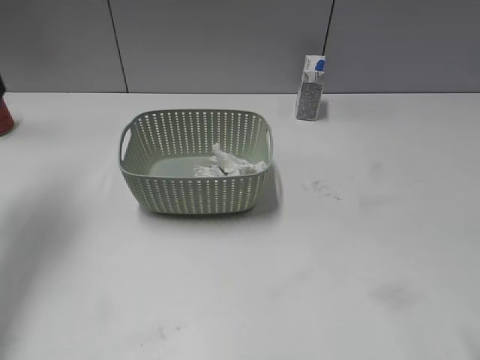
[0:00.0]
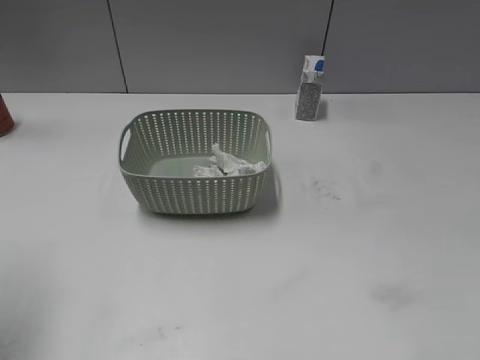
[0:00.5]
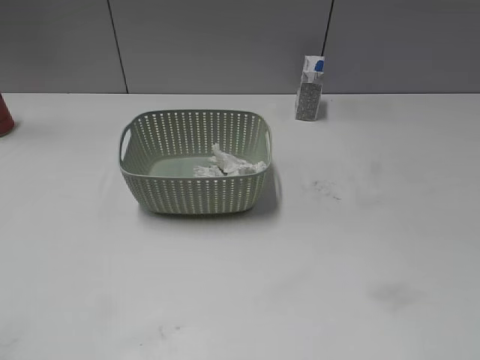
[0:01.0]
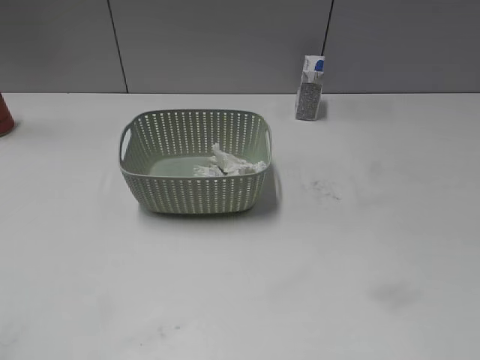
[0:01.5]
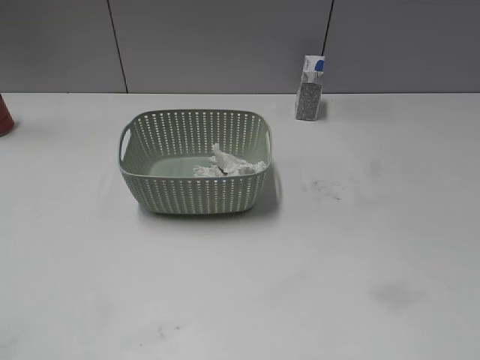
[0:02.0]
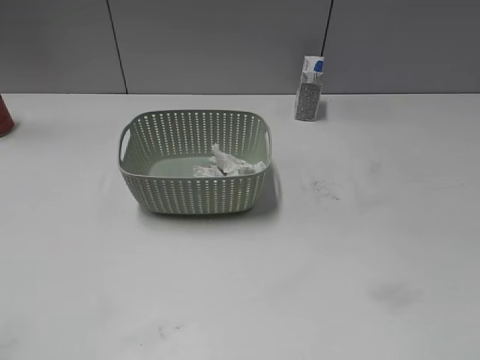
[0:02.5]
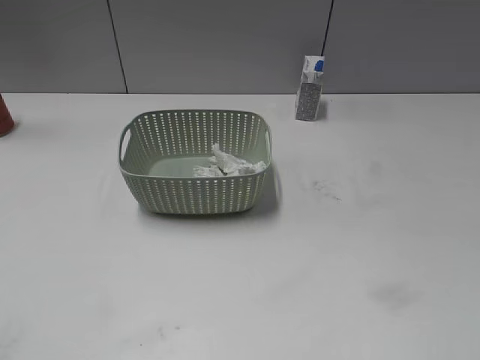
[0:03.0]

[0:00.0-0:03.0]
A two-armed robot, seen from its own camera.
0:00.0 to 0:01.5: The left gripper heads backward, covering roughly 35 cm.
0:01.5 to 0:03.0: Both grippers stay put.

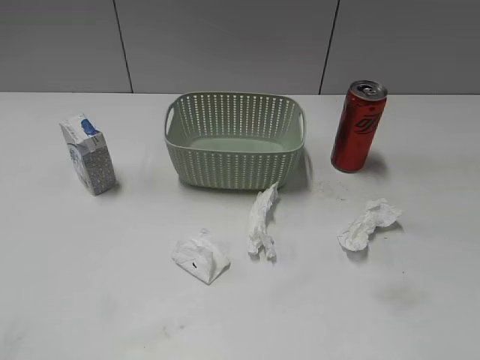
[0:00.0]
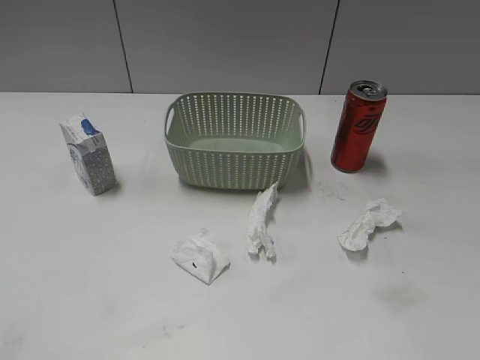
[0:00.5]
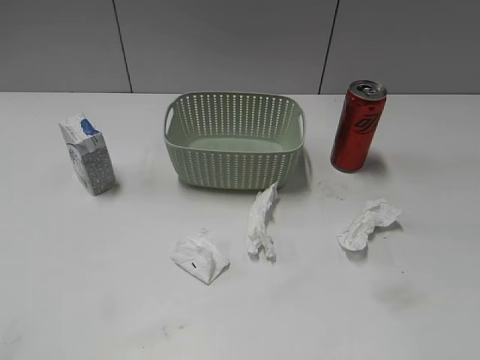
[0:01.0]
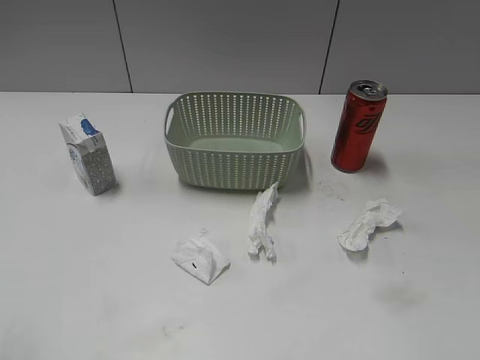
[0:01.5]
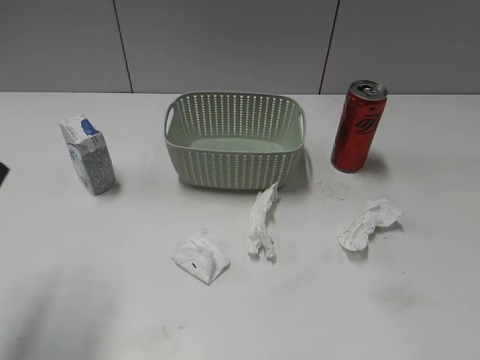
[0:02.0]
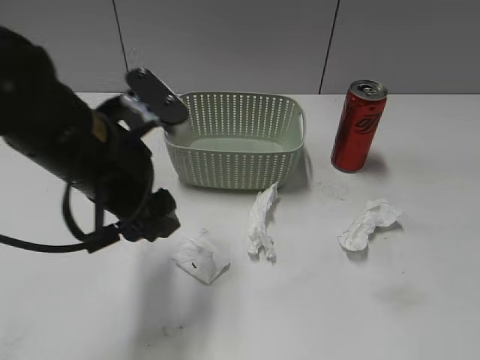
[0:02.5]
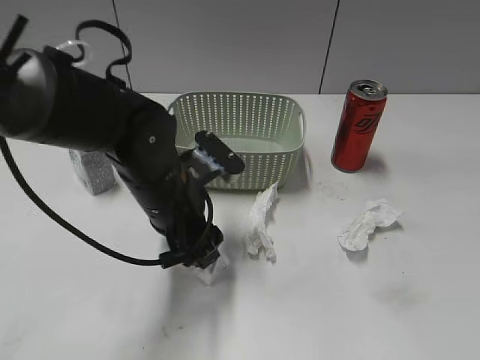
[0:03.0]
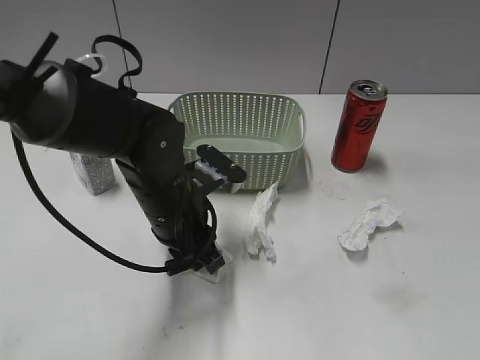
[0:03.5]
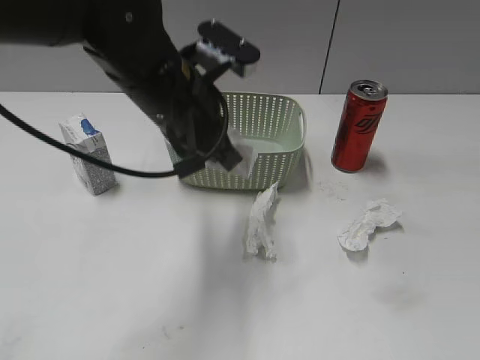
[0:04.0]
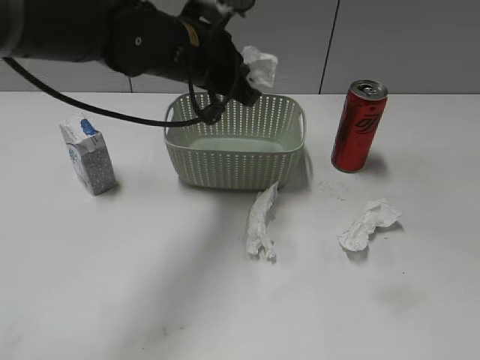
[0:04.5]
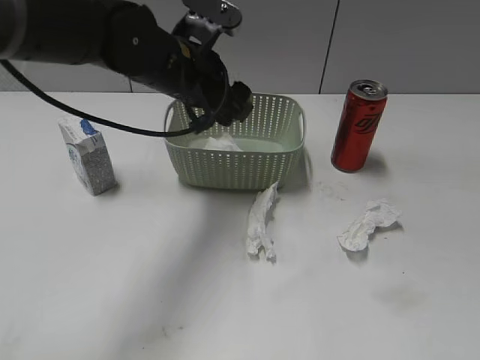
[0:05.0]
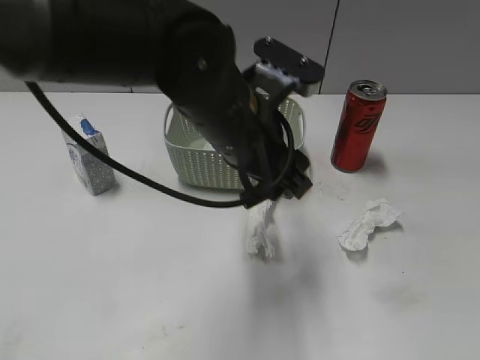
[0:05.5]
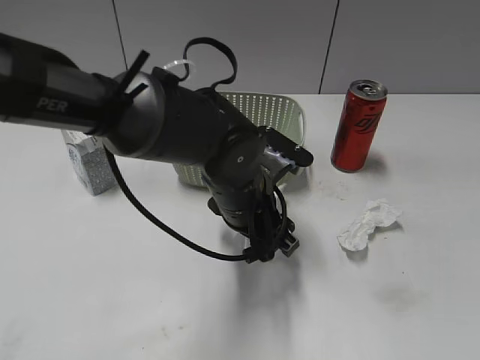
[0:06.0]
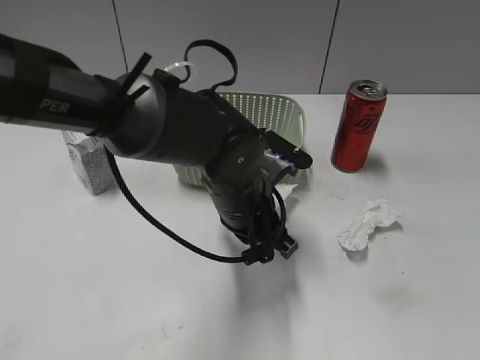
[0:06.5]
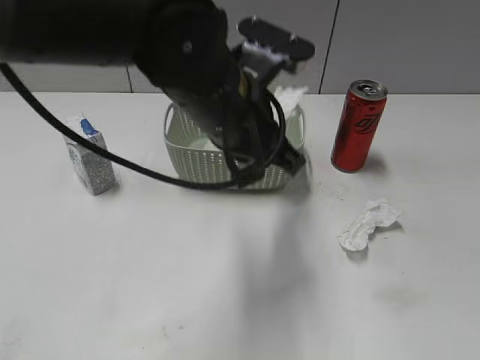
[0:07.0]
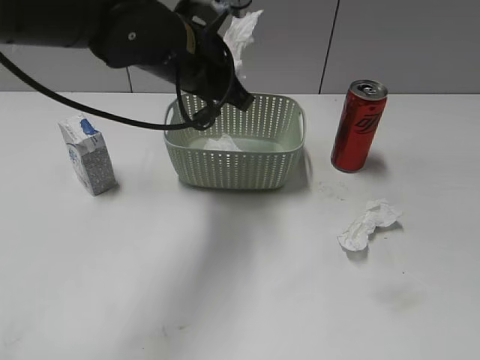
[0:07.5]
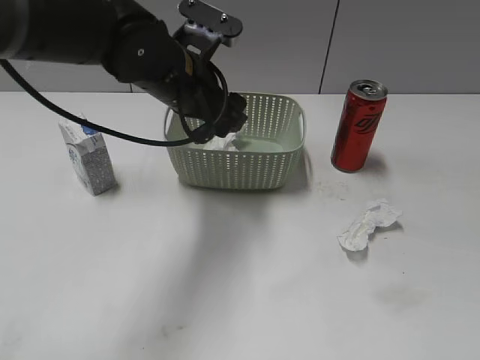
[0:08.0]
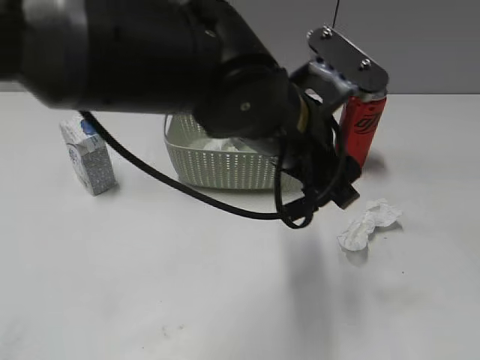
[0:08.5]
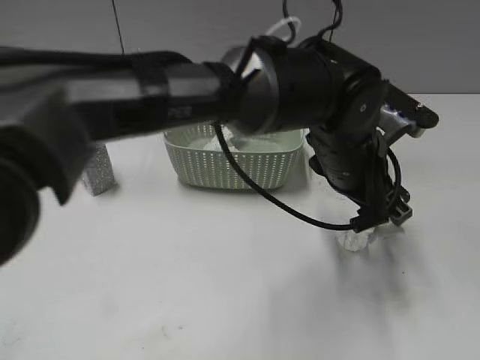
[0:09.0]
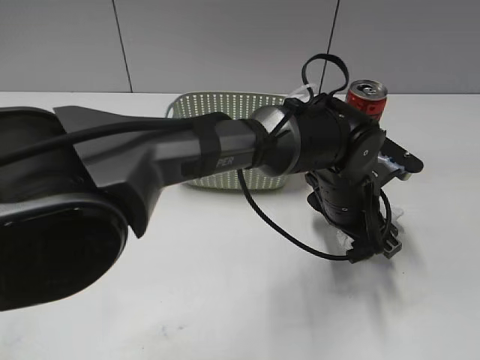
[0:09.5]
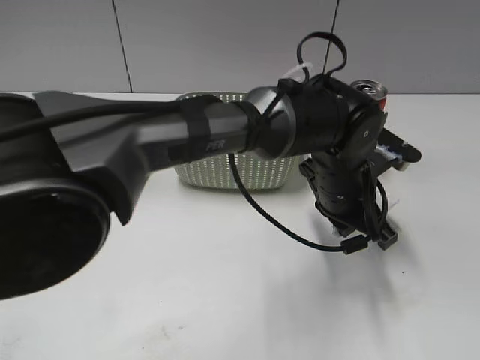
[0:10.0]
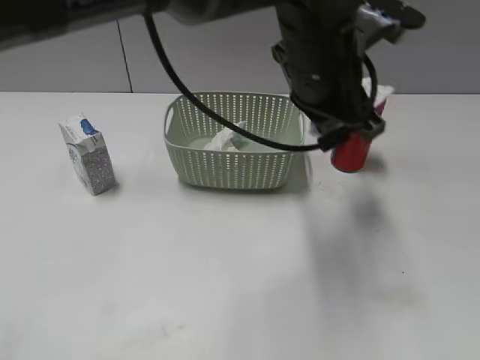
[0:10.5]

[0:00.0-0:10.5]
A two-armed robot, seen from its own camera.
Step, 0:02.0 to 0:03.5: Grasp the waste paper with left gripper.
Step, 0:04.0 to 0:04.5: Place the waste paper in the basket with left gripper.
Step, 0:05.0 to 0:06.5: Grasp the waste paper with left gripper.
Step, 0:07.0 to 0:07.5: Place the waste paper in the basket with left gripper.
Step, 0:08.0 to 0:09.5: Grasp the waste paper with left gripper.
0:02.0 to 0:04.0: The left gripper heads to the right and forward, covering about 25 cm, and closes.
0:04.0 to 0:06.5: The left gripper is displaced downward and to the right by about 15 cm, and opens and closes again.
0:06.5 to 0:08.5: The left gripper goes approximately 10 cm upward, and opens its fingers.
0:08.5 to 0:10.5: The left gripper travels downward and back again, about 10 cm each way, and closes.

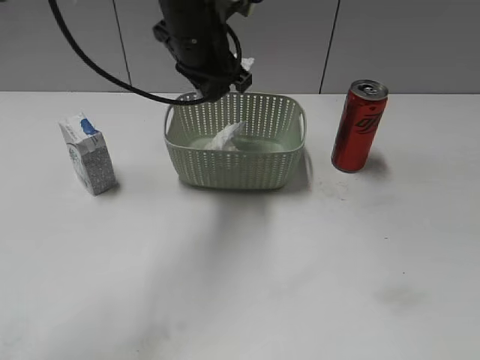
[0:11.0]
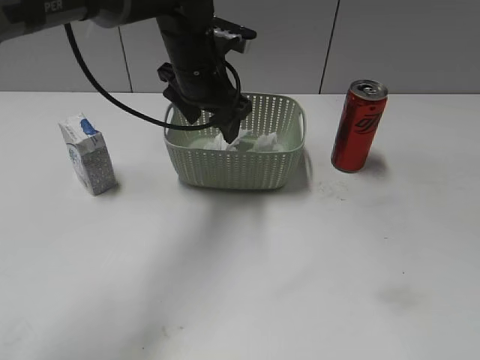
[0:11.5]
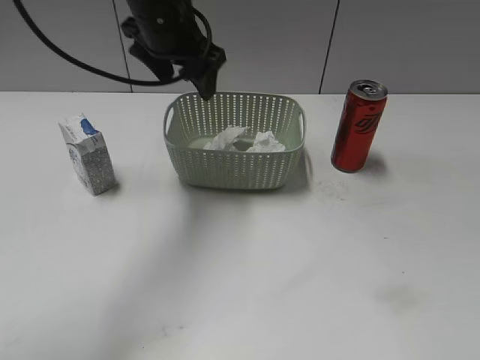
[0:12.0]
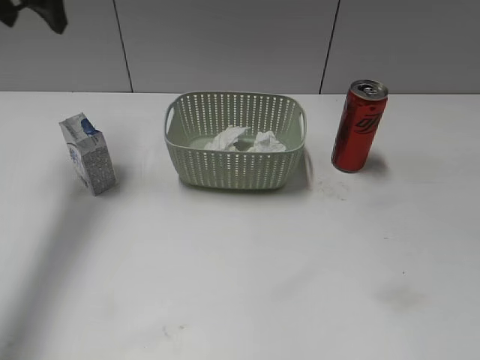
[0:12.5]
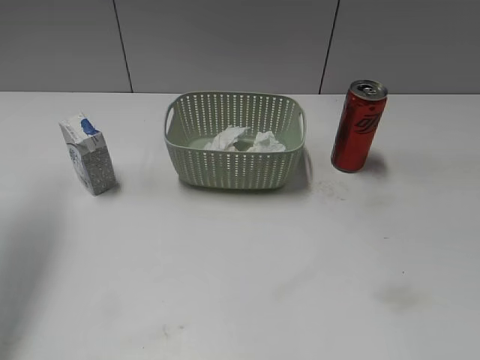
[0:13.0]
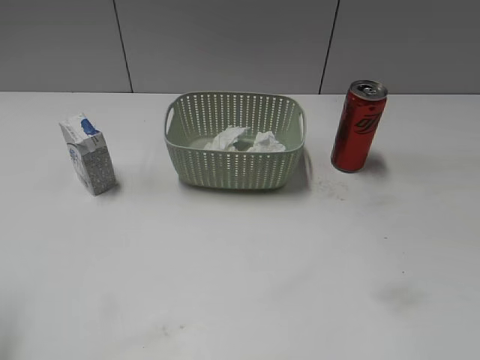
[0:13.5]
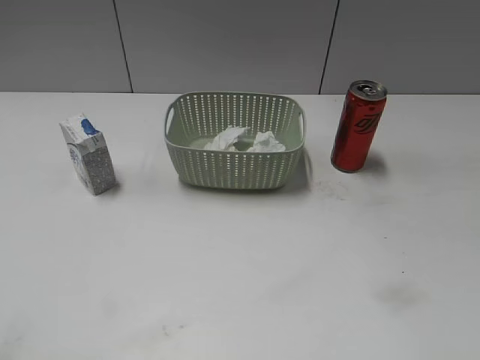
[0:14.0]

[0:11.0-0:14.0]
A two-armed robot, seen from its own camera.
0:11.0 to 0:12.5: The left gripper heads to the left, covering roughly 20 cm, and opens its fingers.
0:12.5 to 0:14.0: The left gripper goes some 35 cm backward.

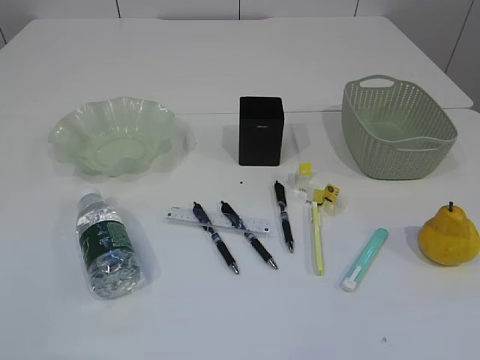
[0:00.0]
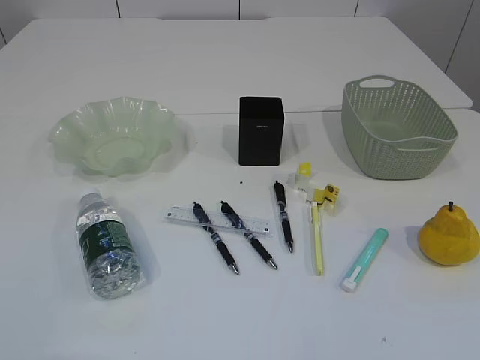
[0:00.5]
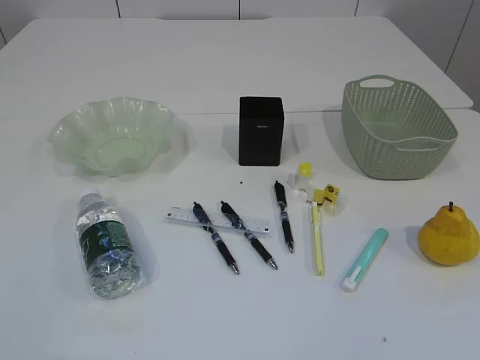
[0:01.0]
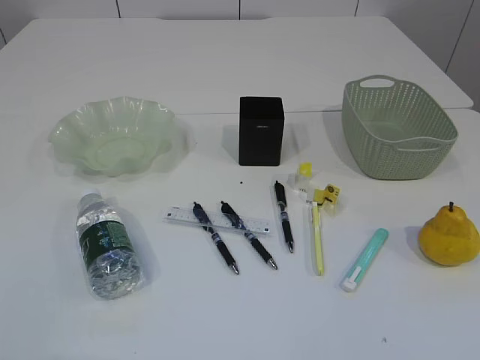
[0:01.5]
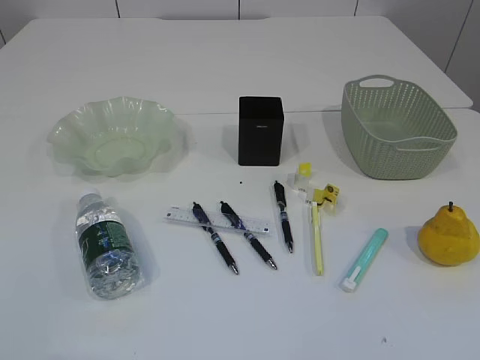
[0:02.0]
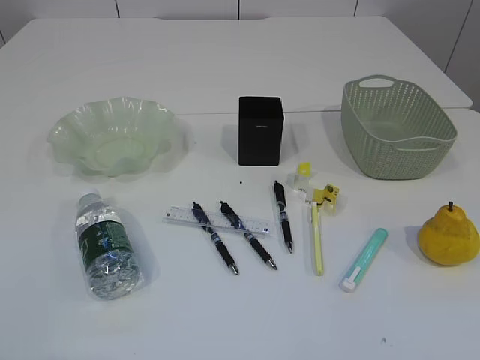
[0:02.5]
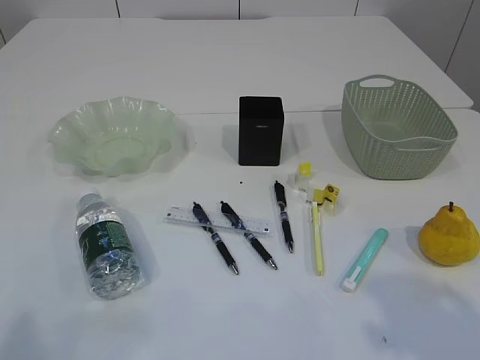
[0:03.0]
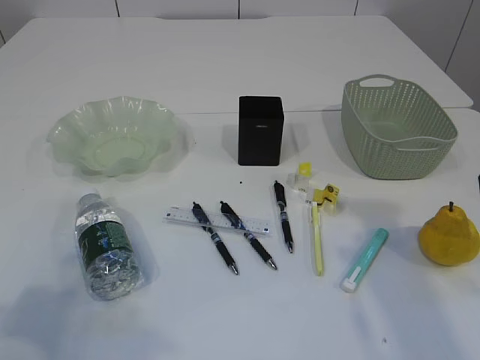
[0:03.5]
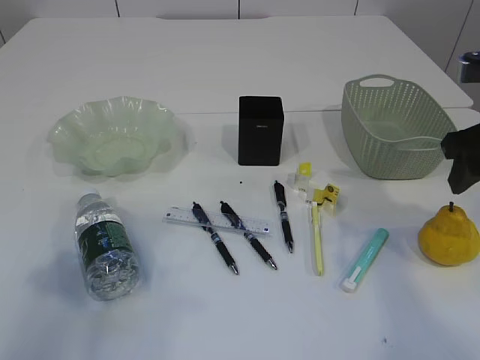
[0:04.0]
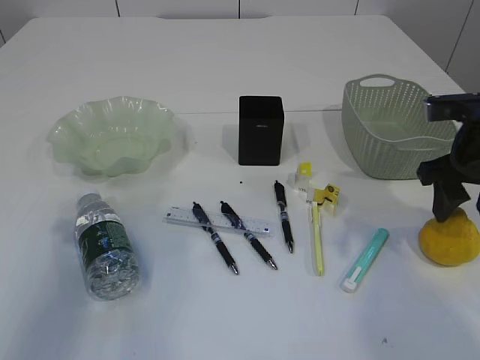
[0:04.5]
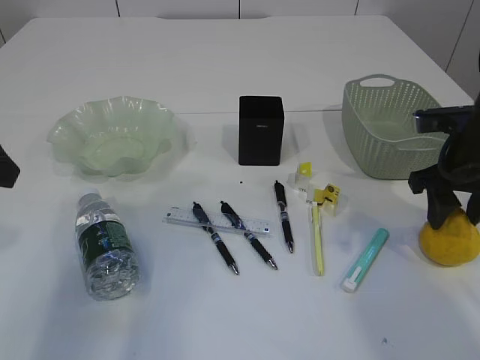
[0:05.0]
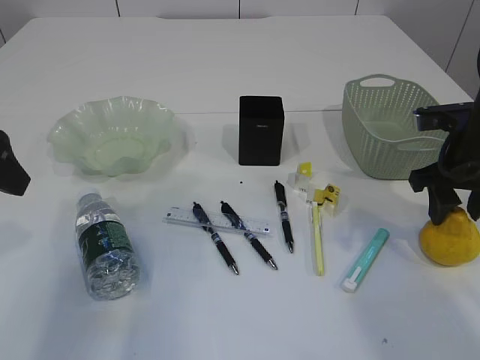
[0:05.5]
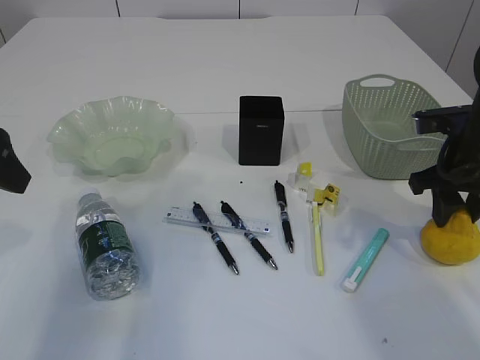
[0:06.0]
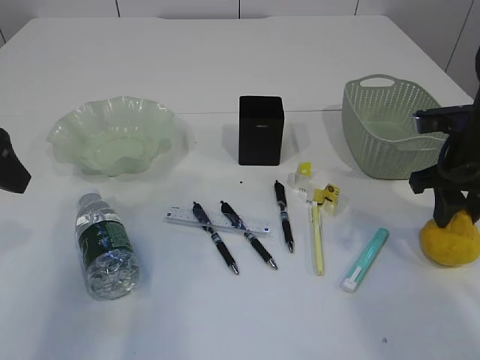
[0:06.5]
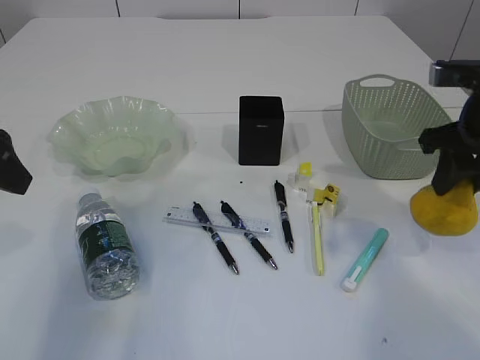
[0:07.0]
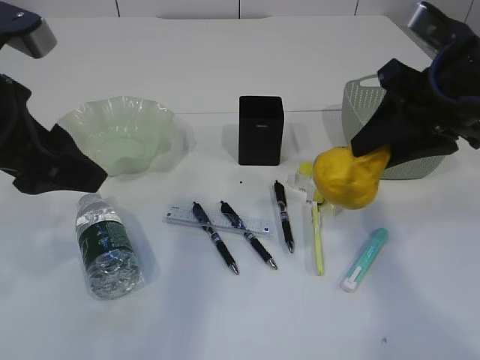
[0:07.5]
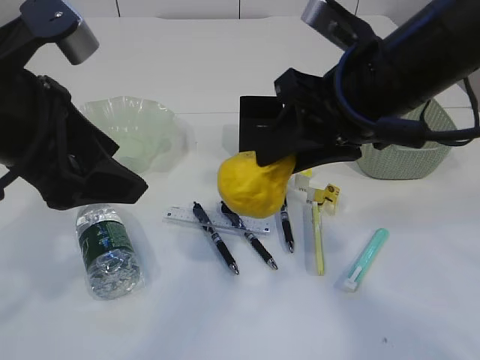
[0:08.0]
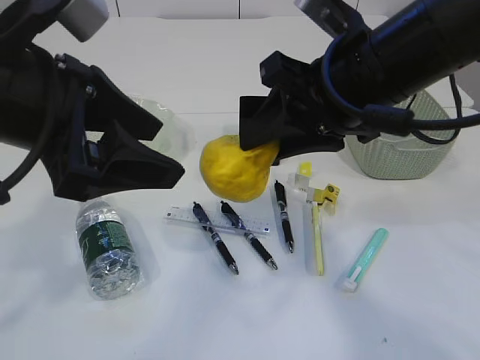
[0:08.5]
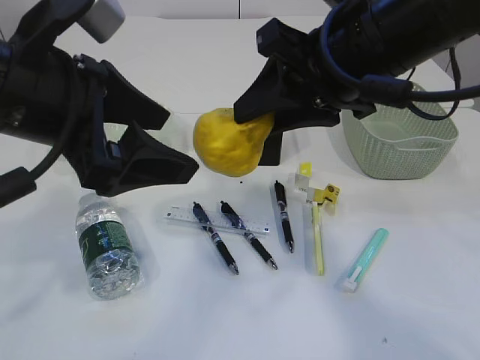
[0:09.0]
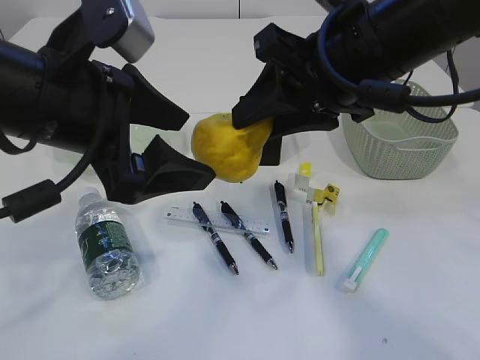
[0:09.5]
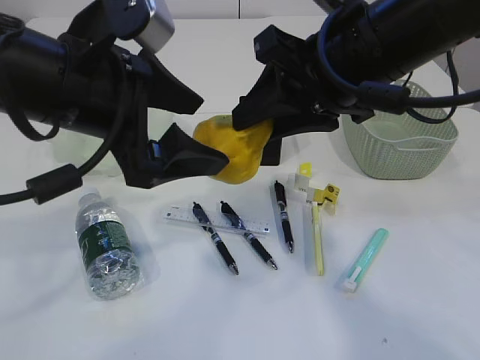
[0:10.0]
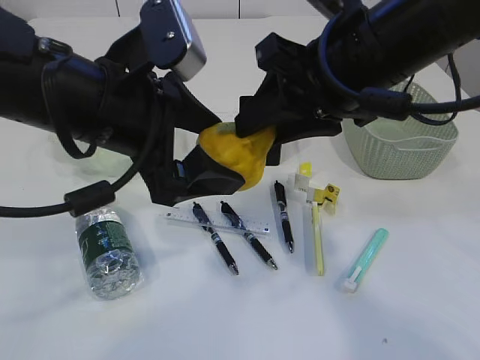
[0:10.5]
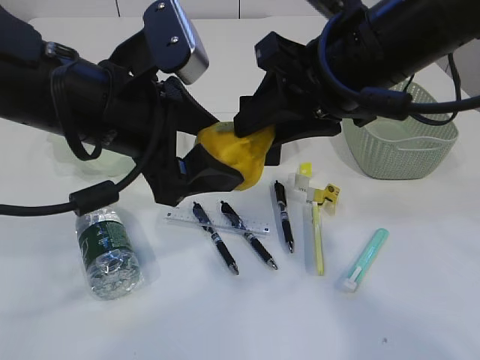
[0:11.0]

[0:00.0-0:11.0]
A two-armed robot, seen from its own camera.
0:02.0 to 0:03.5: The left gripper travels forward by approximately 15 cm. Meanwhile the right gripper moves forward, some 25 cm.
0:03.5 to 0:05.5: The right gripper is displaced forward and downward by approximately 15 cm. The left gripper is displaced forward by about 15 cm.
0:05.5 to 0:07.5: The left gripper is displaced to the right by some 5 cm. Meanwhile the right gripper is displaced upward and to the left by some 10 cm.
0:07.5 to 0:09.0: The right gripper travels to the left by about 10 cm. The left gripper goes approximately 5 cm to the right, and opens.
0:09.0 to 0:11.0: The left gripper changes place by approximately 5 cm.
